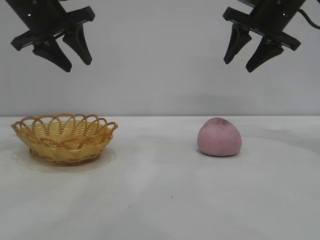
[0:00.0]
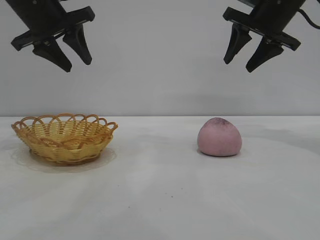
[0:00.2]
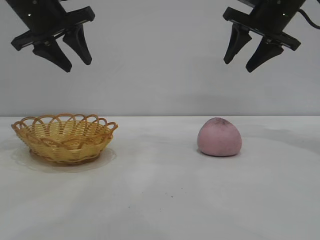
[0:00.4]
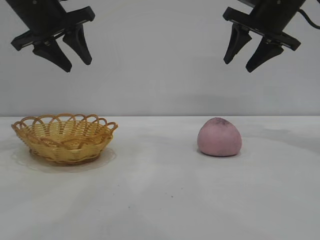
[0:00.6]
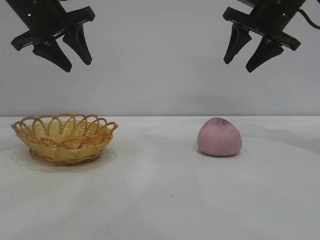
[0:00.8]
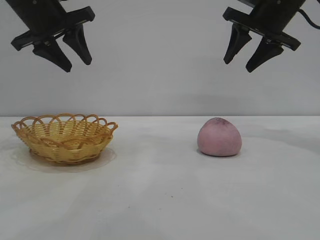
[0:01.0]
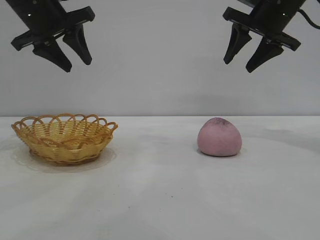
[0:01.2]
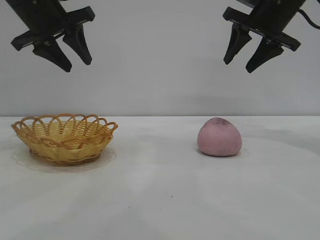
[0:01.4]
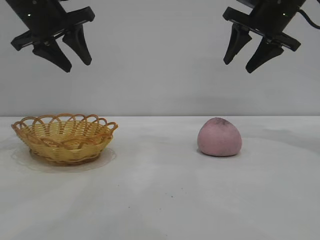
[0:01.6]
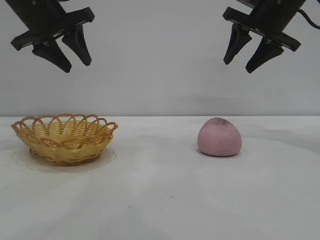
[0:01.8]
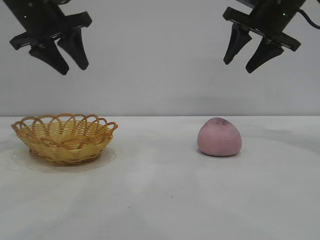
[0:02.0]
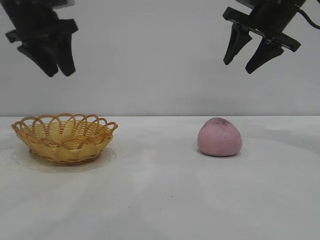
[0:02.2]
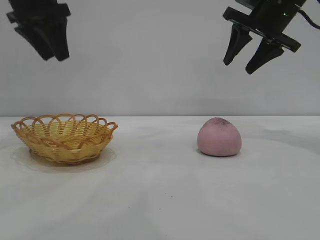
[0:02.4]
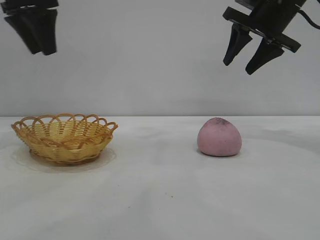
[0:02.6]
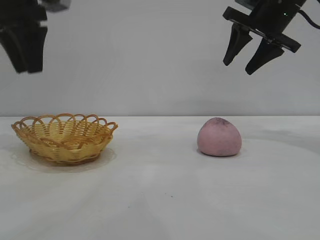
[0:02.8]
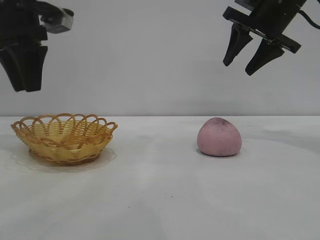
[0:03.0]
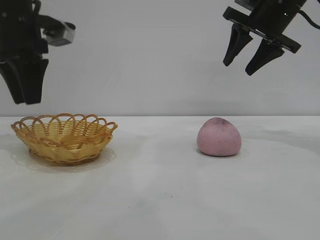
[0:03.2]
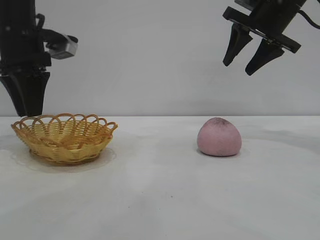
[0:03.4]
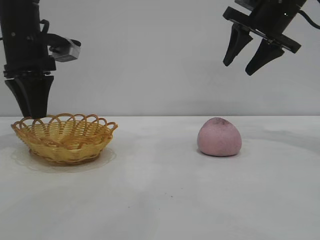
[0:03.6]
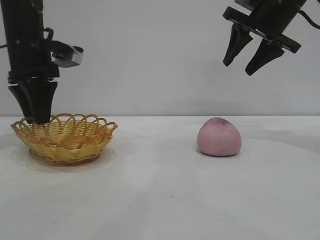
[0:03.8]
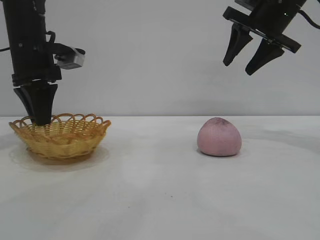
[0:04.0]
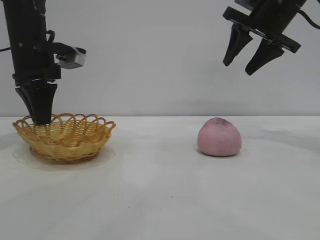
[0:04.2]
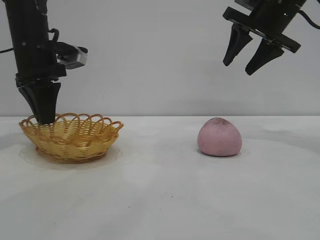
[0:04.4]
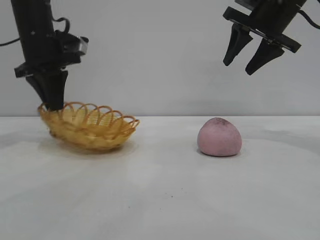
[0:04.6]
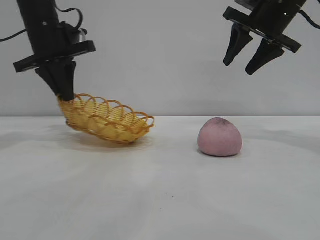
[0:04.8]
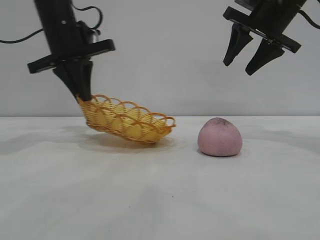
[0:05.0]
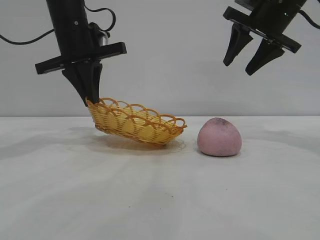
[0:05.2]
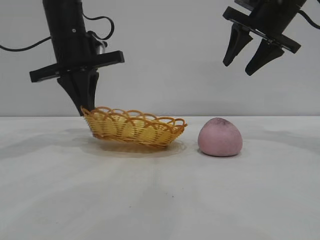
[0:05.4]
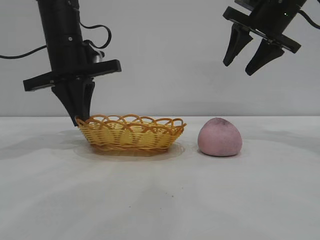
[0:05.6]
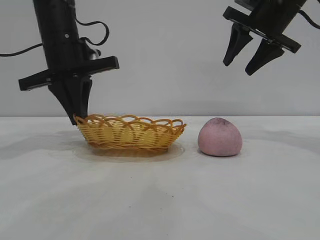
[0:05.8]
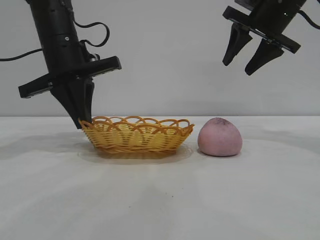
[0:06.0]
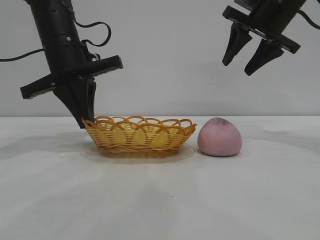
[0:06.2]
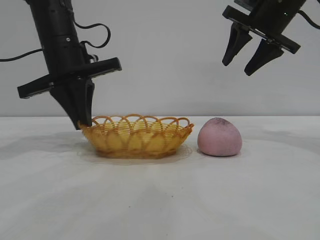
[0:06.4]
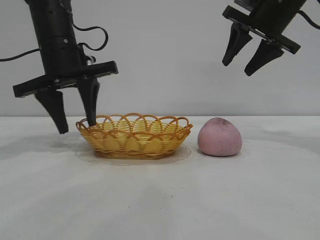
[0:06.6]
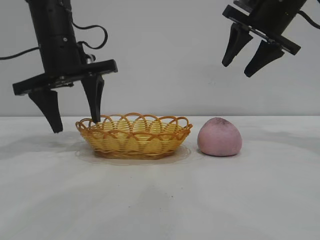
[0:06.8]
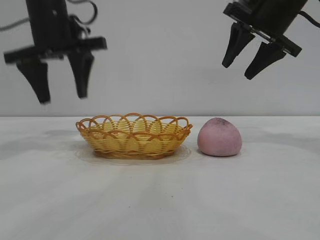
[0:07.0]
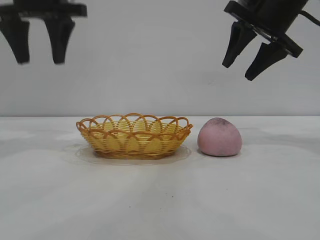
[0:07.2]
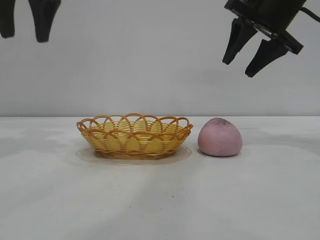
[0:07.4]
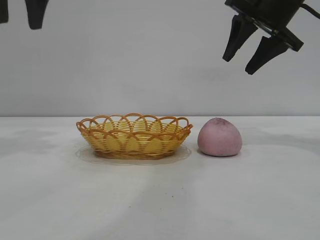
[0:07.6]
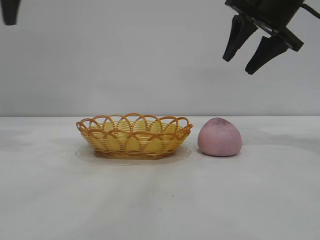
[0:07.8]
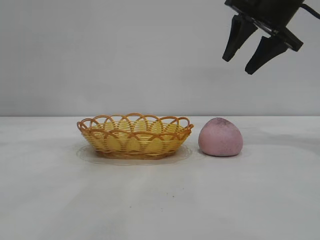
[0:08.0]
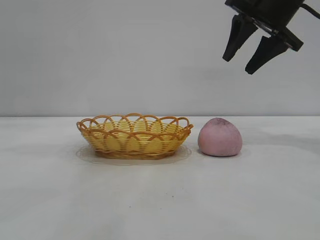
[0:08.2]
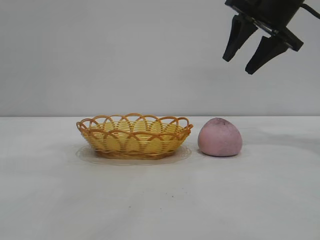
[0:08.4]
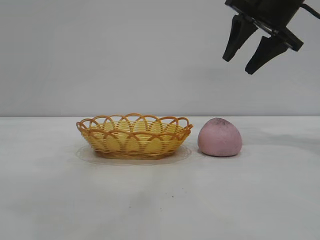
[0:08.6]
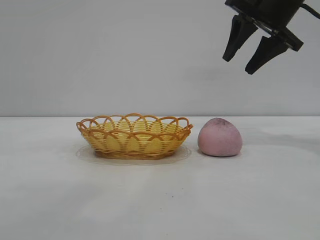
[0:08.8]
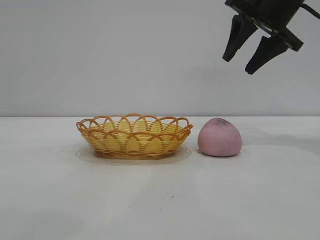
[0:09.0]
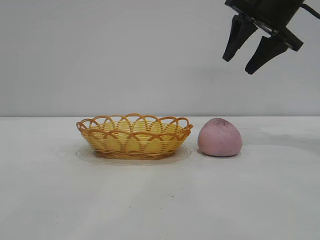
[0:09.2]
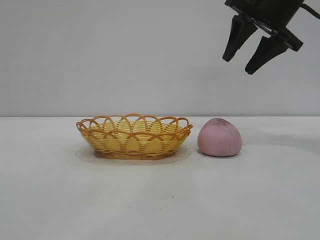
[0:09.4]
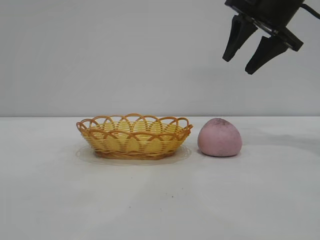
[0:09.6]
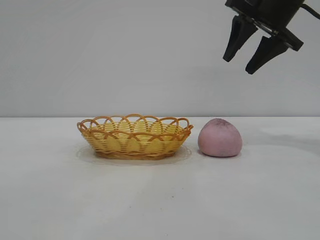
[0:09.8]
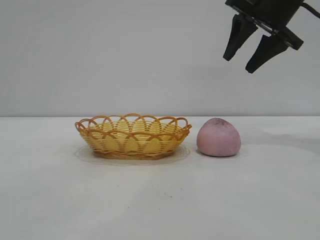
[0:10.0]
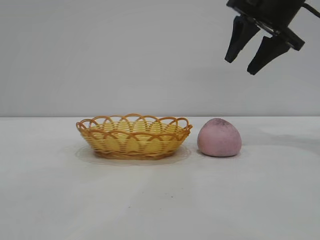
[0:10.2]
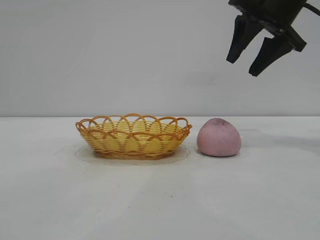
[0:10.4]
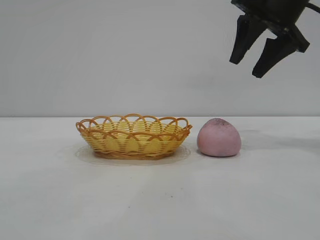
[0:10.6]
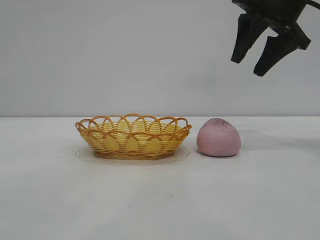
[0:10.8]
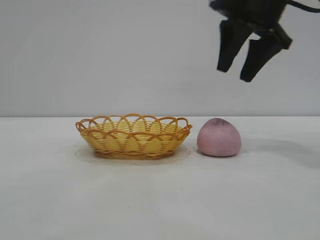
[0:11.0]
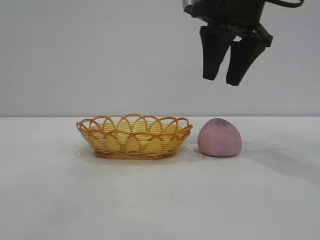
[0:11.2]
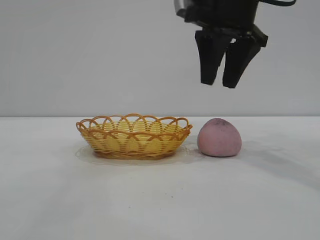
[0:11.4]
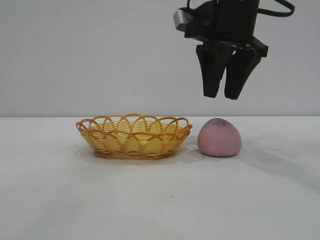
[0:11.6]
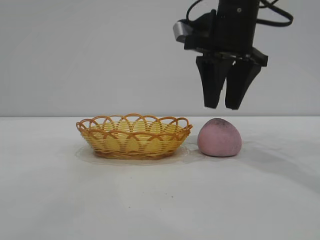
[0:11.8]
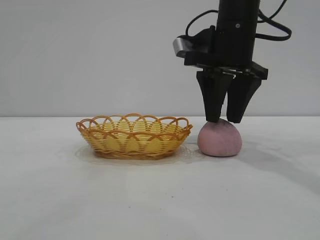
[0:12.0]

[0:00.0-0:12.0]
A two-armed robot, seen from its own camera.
Task of the whole recording: pick up the peach and put it into the basket.
Step, 0:00.0 to 0:06.8: Move the basket to the center of view.

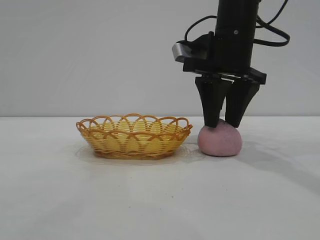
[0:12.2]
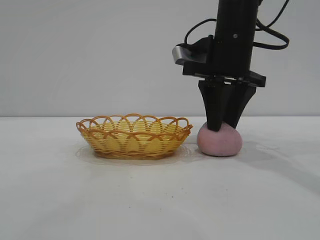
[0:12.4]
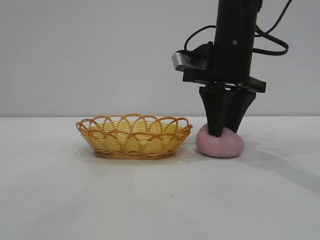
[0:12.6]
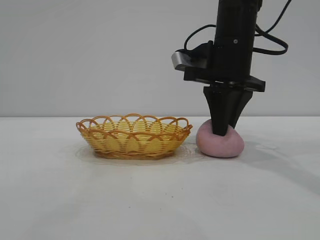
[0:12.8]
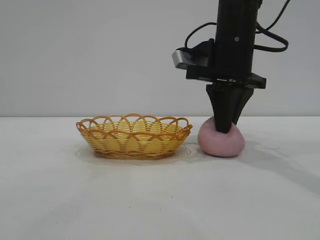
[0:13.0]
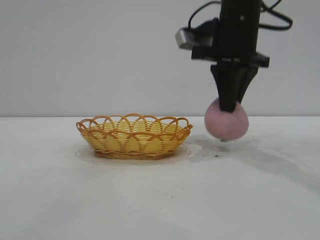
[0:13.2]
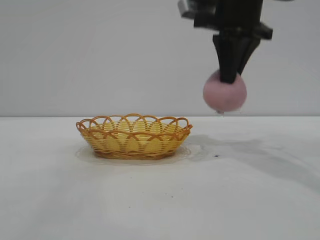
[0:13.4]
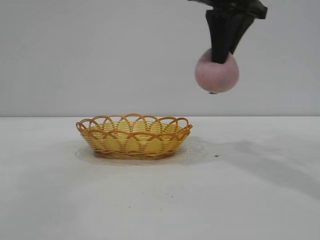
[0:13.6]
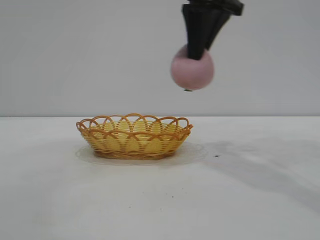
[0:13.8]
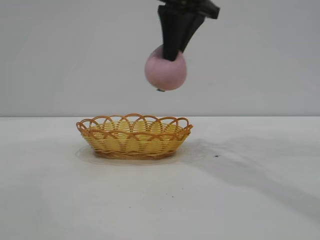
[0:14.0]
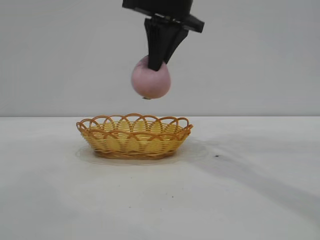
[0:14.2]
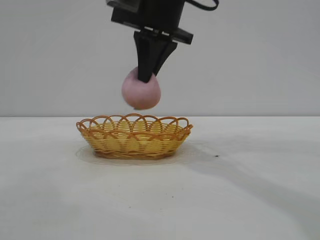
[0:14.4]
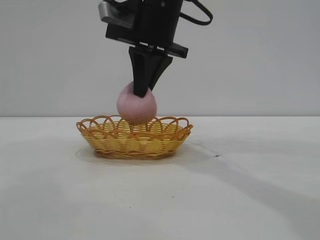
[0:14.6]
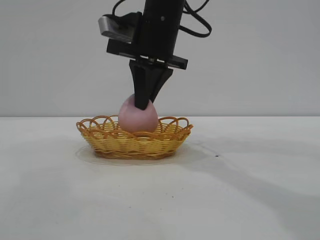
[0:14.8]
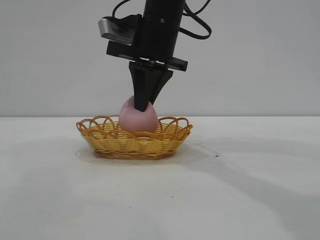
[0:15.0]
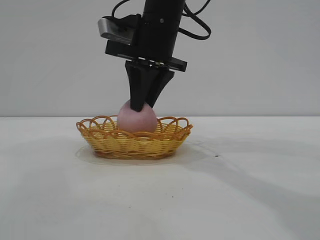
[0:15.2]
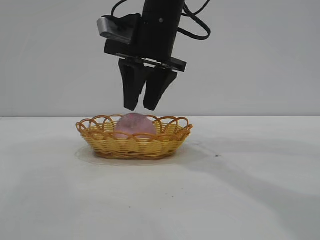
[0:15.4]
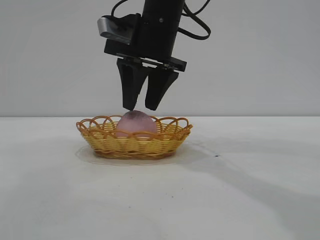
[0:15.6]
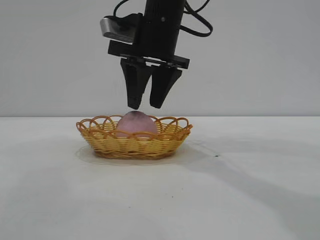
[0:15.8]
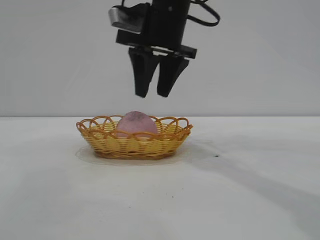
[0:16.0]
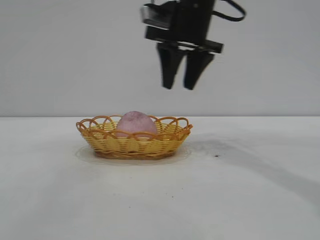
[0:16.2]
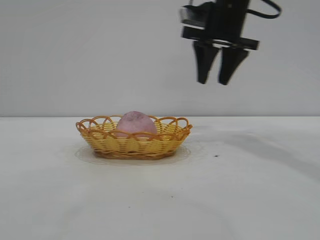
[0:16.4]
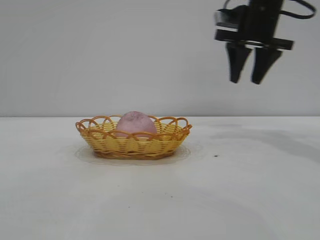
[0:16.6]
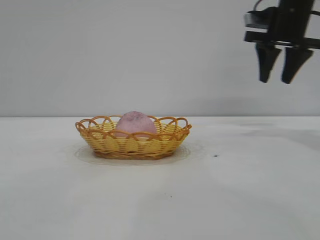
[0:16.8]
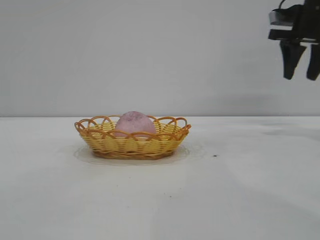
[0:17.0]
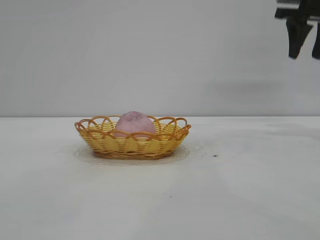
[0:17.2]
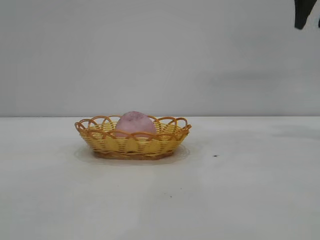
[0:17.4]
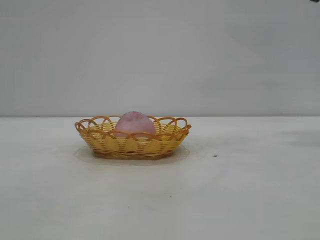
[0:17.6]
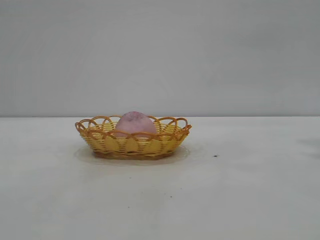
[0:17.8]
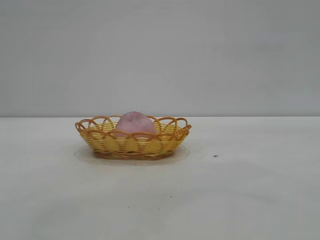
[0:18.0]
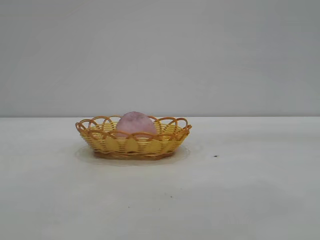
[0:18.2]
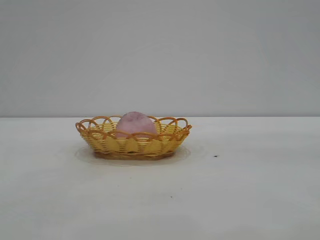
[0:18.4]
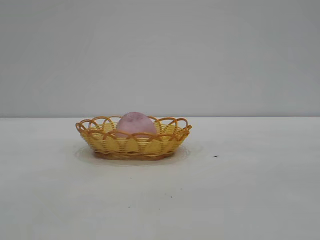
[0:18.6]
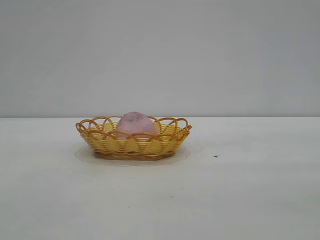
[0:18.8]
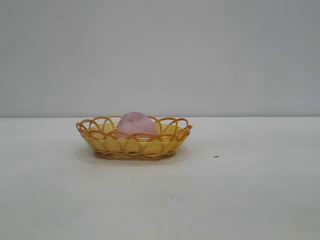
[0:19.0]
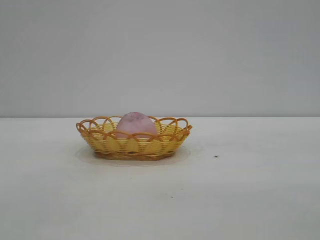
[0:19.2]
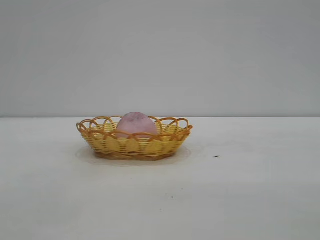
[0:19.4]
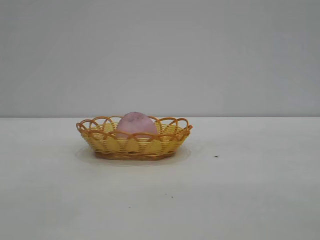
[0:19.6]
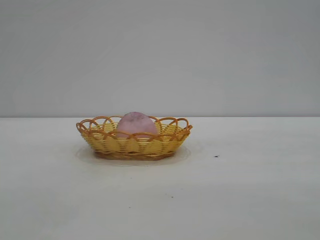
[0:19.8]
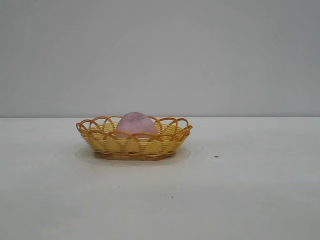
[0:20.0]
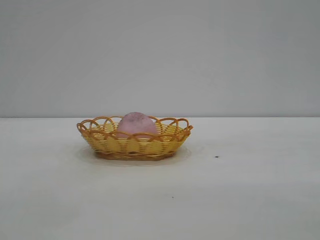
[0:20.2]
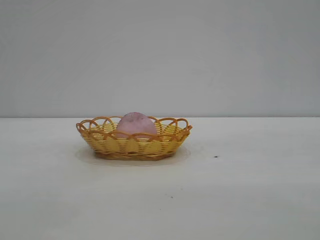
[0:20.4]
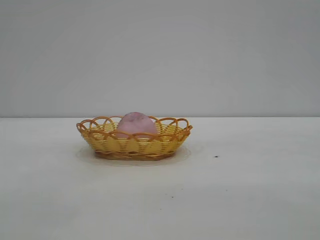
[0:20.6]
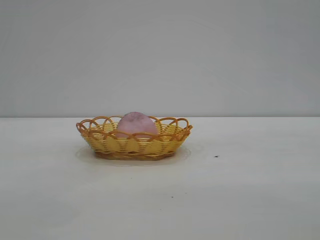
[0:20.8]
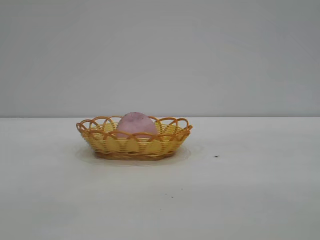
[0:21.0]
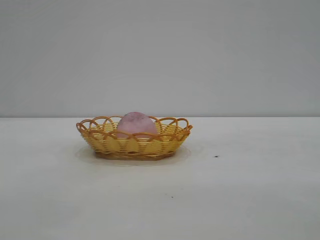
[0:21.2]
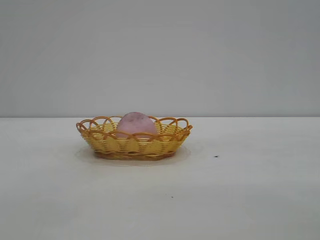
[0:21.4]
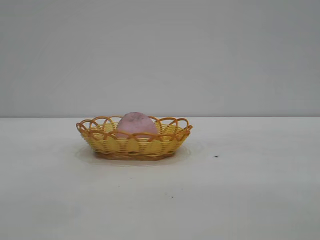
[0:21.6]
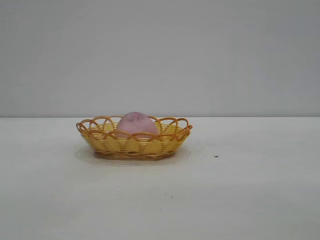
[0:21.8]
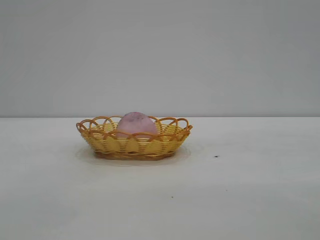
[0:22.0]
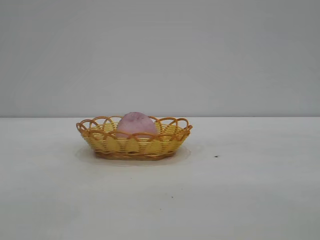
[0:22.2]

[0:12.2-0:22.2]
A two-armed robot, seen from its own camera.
Task of the whole recording: pick up the peach and put it into the basket.
Step, 0:13.6 to 0:16.0: place the peach into the basket.
